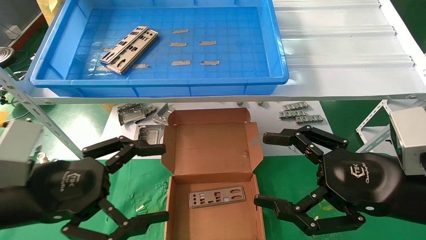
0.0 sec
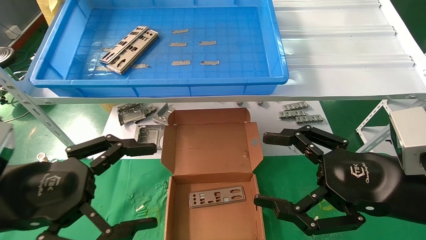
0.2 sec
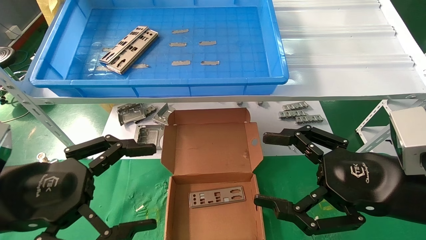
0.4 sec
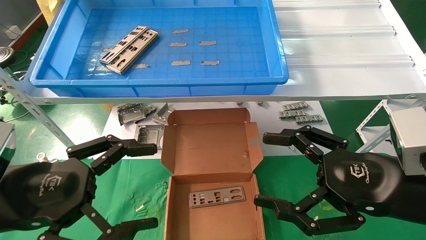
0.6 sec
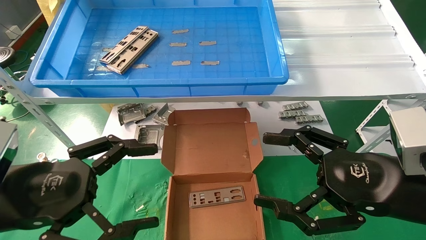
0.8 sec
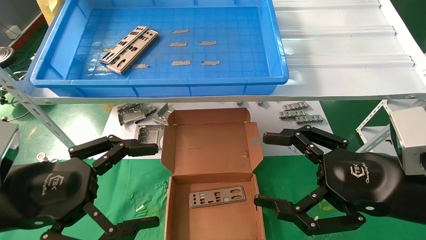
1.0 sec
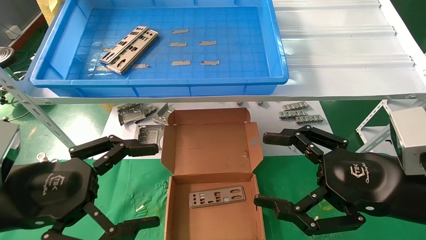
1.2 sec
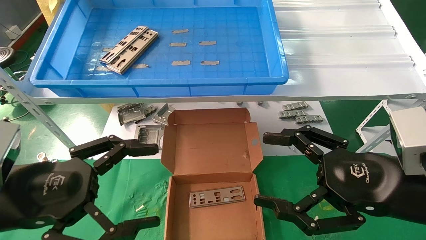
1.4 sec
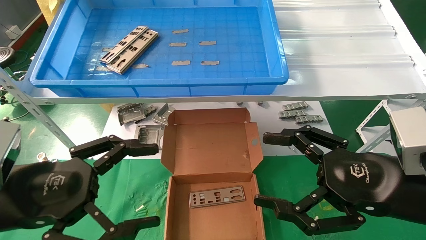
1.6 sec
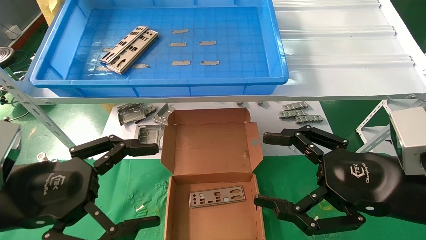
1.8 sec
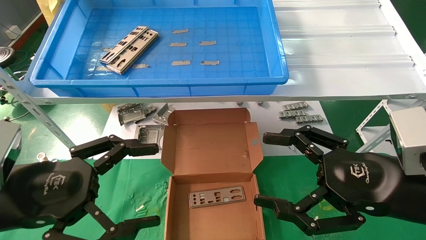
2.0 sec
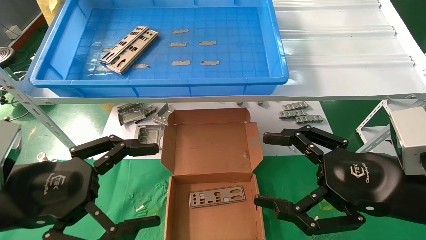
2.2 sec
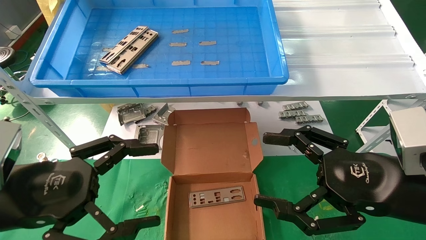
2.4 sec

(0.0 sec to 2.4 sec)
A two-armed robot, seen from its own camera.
Task of the whole recording: pick up the parts on the tray and put them in the cardboard box.
0.0 sec - 1.2 sec: There are only small adjustments of the grippers.
1.2 sec - 2.4 sec: Both grippers stay about where they are.

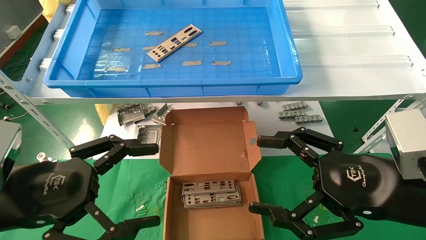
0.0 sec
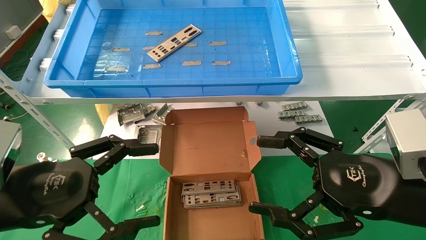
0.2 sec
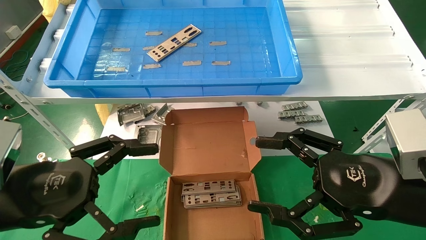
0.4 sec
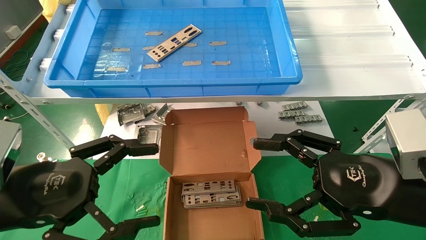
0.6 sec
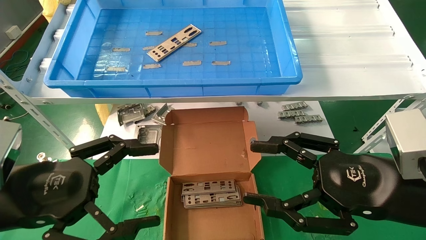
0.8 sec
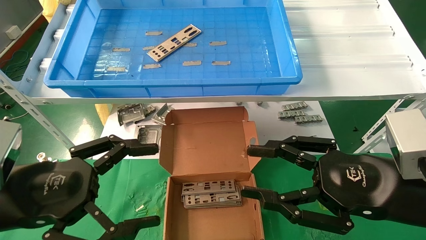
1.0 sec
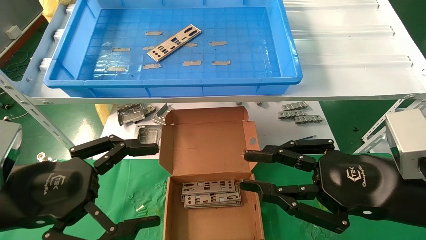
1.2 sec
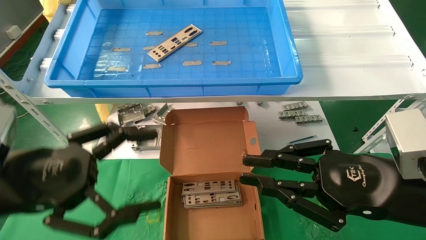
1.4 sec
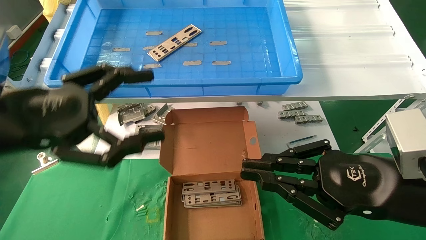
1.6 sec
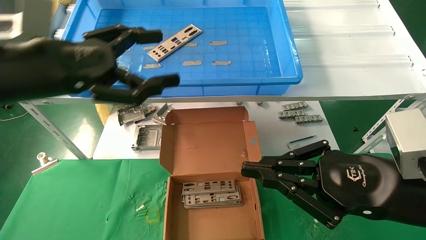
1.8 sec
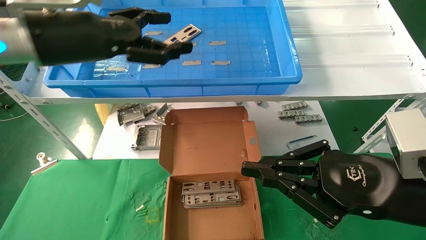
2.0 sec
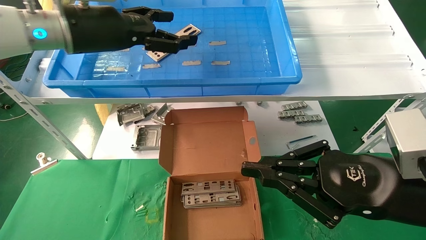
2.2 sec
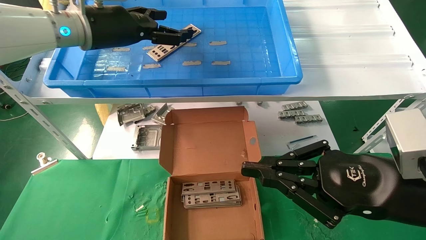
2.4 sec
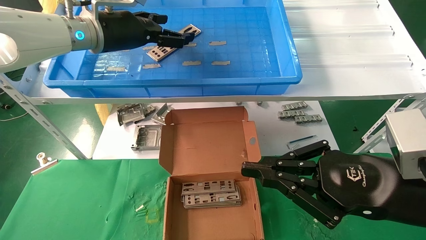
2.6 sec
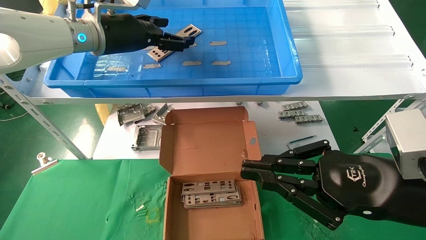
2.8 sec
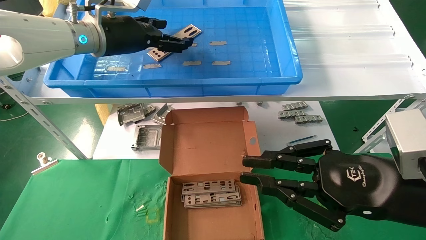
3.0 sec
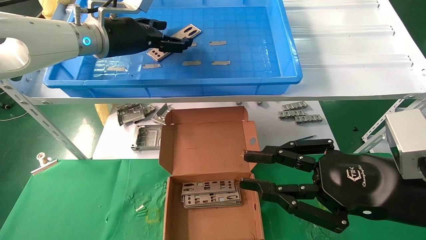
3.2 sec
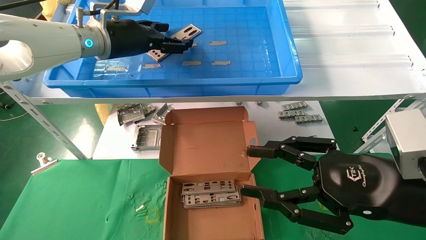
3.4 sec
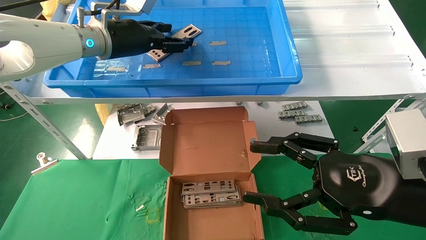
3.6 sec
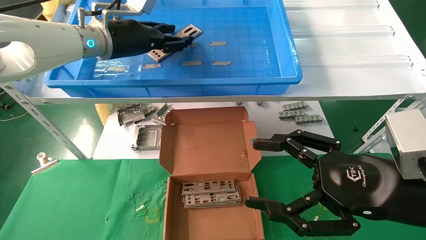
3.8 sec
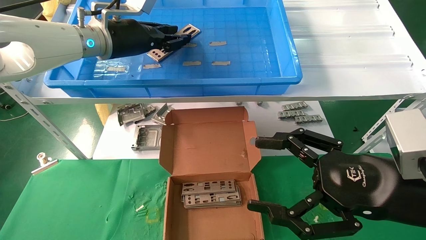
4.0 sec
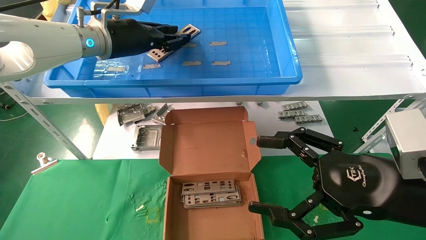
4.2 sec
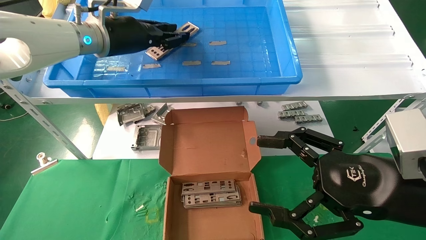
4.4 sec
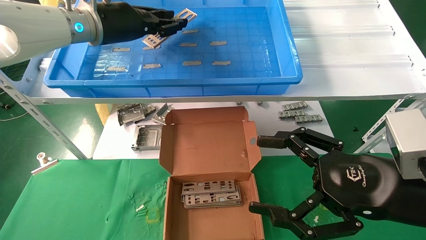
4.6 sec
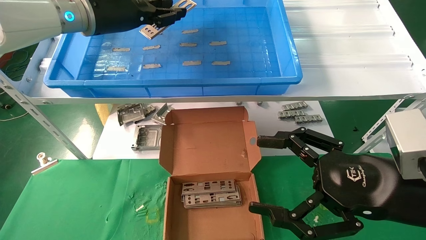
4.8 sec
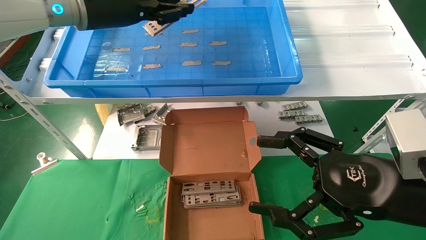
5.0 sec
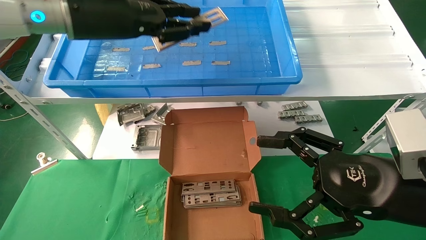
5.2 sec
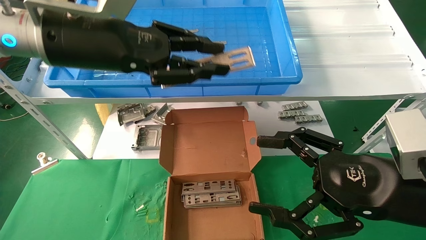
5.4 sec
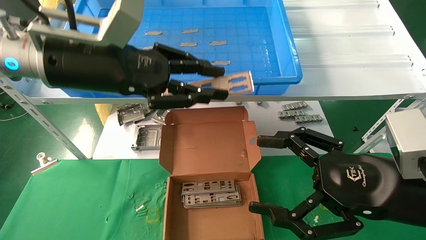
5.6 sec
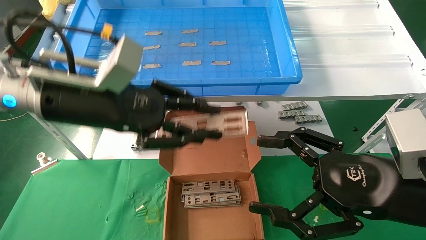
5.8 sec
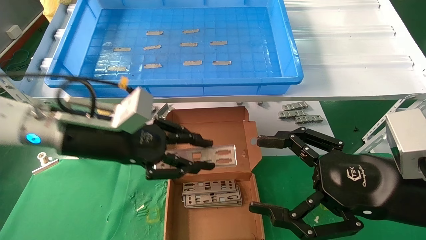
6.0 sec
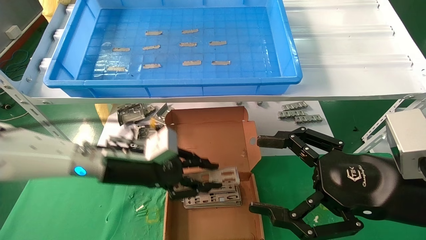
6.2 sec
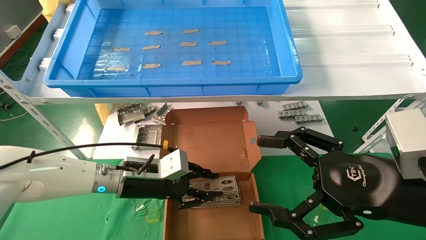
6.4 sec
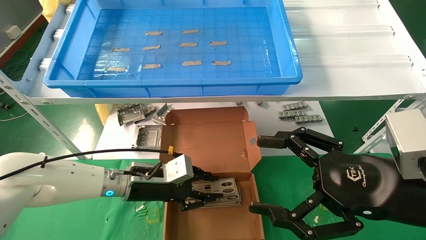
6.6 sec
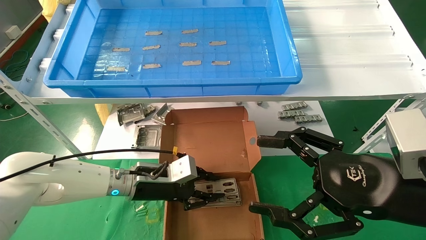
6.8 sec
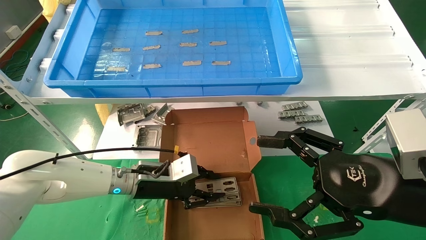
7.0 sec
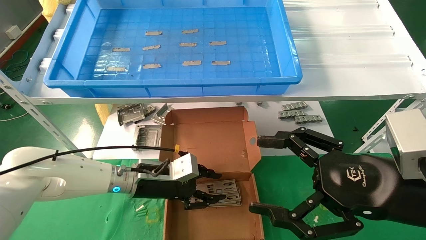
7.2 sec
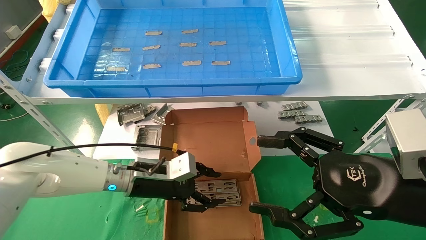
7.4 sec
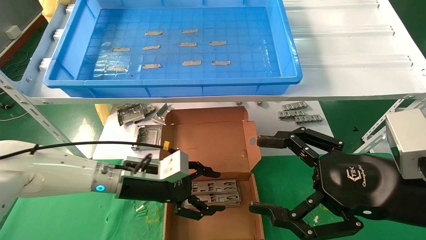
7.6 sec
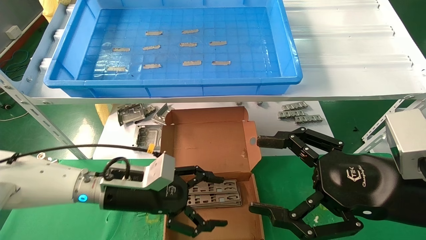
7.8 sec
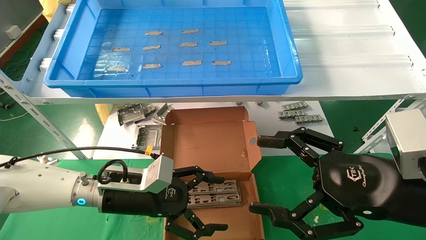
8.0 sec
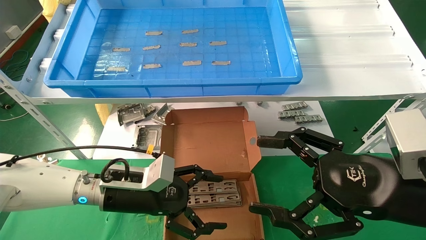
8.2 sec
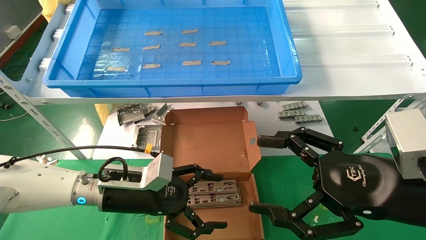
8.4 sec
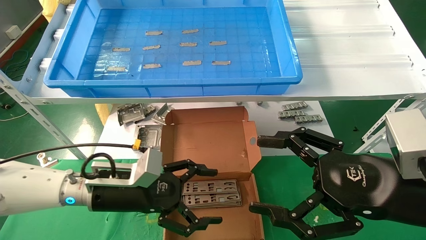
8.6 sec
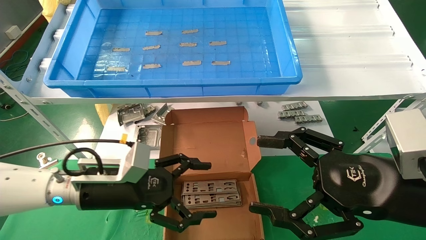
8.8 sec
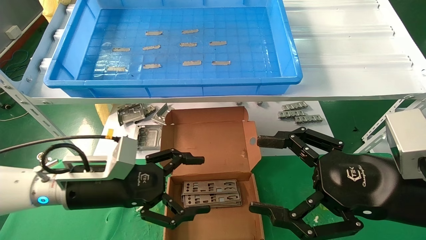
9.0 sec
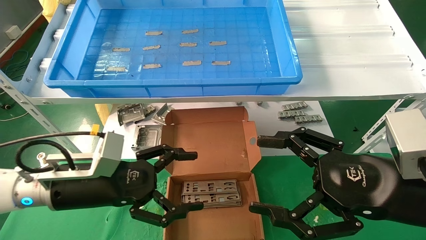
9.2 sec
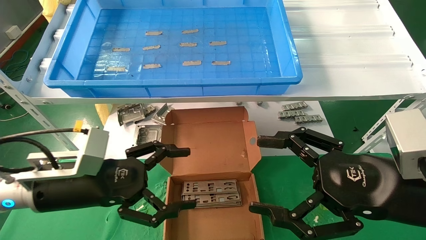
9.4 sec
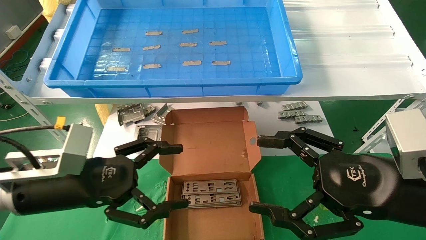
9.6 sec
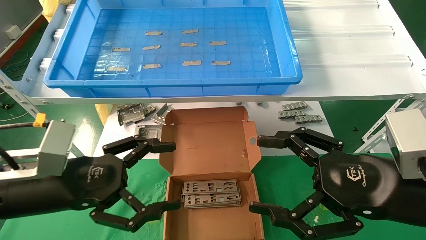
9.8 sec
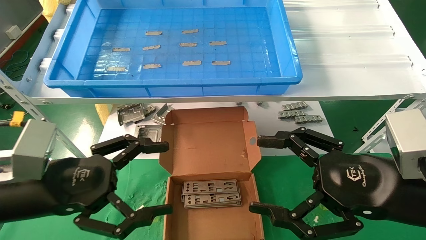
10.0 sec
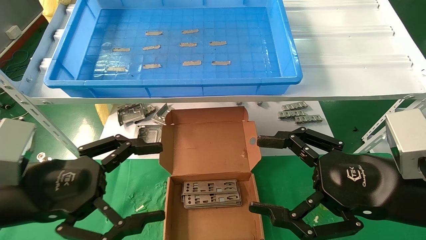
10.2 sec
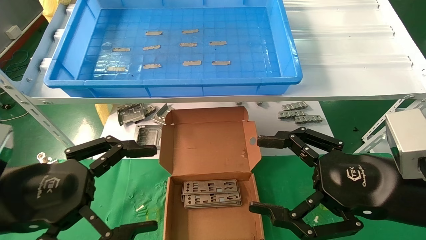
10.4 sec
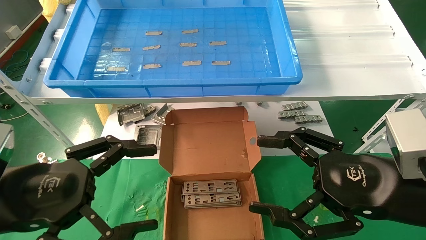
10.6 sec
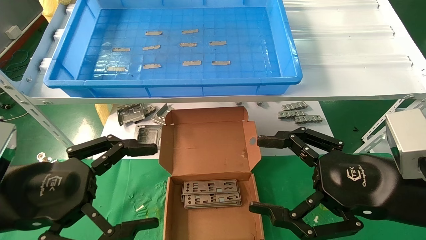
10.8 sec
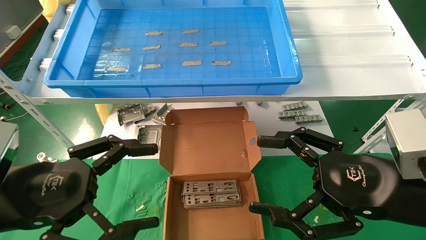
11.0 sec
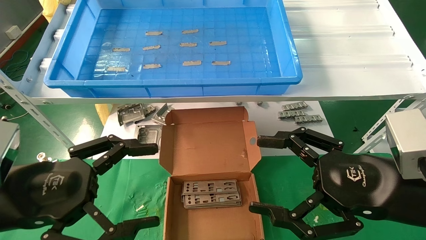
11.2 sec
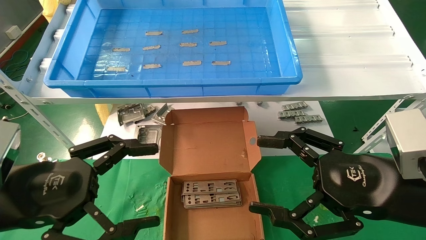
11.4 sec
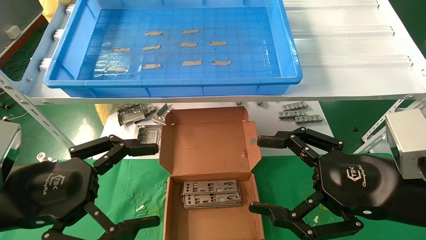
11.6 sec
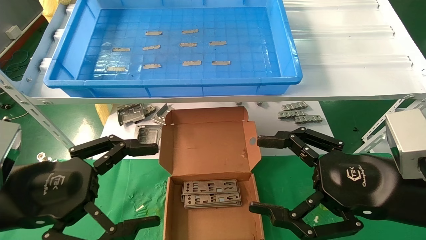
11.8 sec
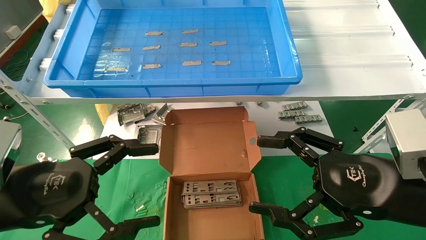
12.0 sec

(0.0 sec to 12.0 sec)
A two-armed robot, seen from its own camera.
Task of the whole recording: pick up the parts on the tray and put them in the cardboard box.
Step, 1.8 sec - 4.2 sec: Pick up the IO bracket from the container box.
Step, 4.4 sec - 7.4 sec: Place the IO bracket into the ingredient slot.
0.0 sec - 1.6 sec: The left gripper travels upward by approximately 10 cm. Meanwhile the right gripper closes its fingers.
1.6 sec - 3.0 sec: The left gripper shifts some 25 cm forward and upward.
3.0 sec - 4.4 sec: The left gripper closes up. Meanwhile the right gripper opens up.
4.4 sec - 6.0 sec: The left gripper travels downward and backward by approximately 20 cm.
6.0 sec - 7.6 sec: The left gripper shifts some 15 cm downward, and opens up.
7.6 sec - 9.0 sec: The left gripper heads backward and to the left, covering about 10 cm, and opens up.
9.0 sec - 10.4 sec: The left gripper is displaced backward, upward and to the left by about 15 cm.
10.4 sec - 12.0 sec: The two grippers keep their place.

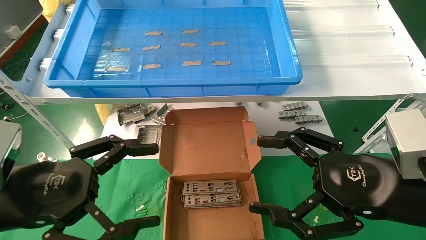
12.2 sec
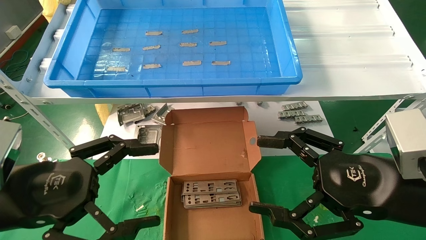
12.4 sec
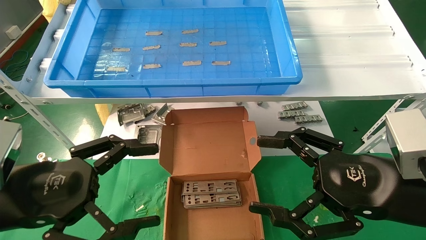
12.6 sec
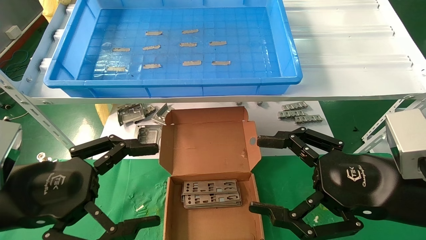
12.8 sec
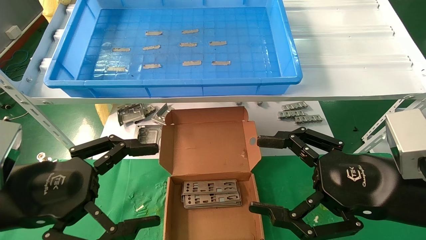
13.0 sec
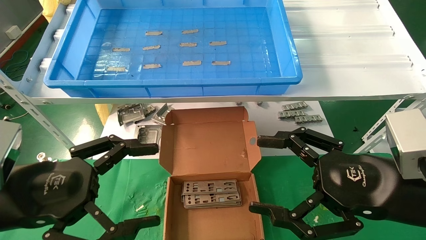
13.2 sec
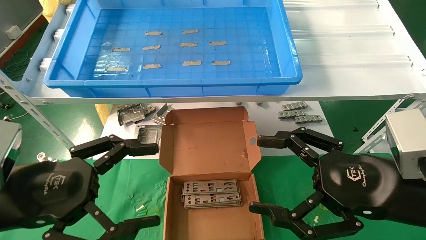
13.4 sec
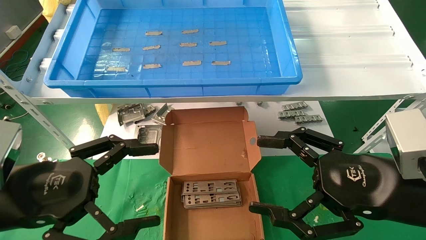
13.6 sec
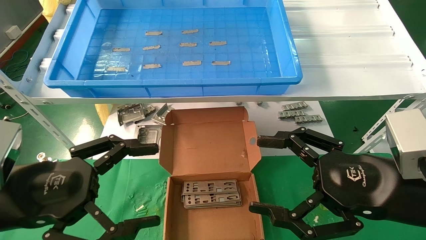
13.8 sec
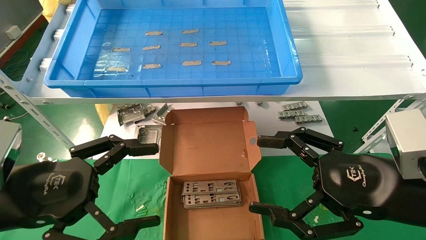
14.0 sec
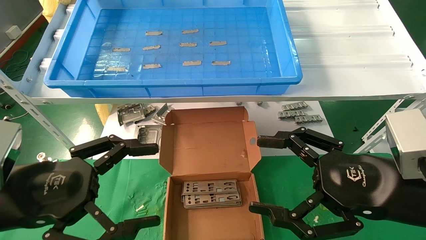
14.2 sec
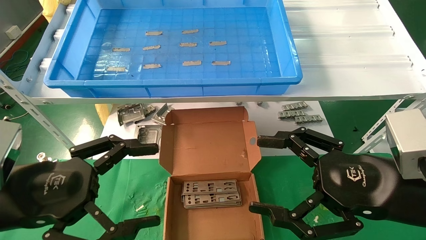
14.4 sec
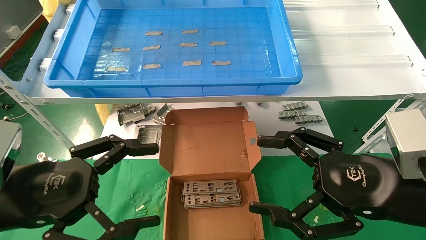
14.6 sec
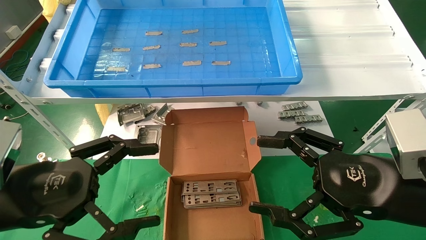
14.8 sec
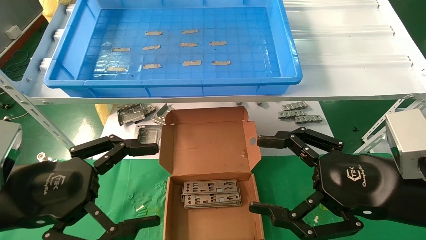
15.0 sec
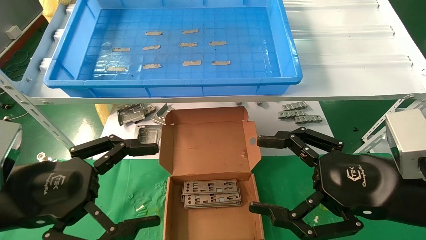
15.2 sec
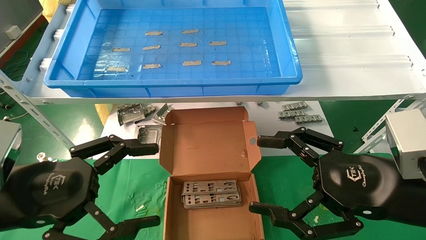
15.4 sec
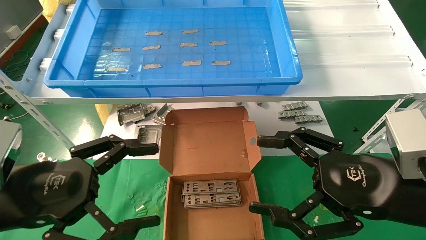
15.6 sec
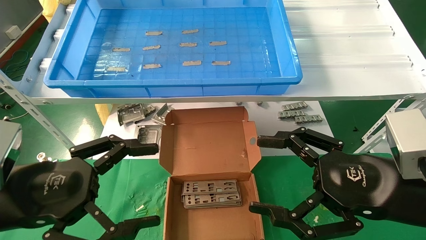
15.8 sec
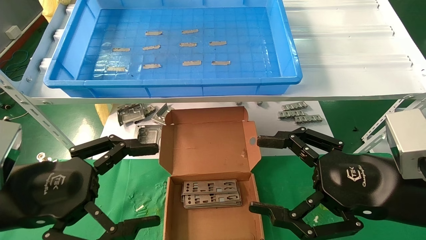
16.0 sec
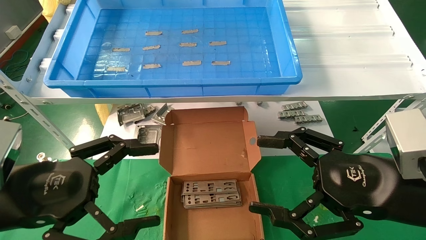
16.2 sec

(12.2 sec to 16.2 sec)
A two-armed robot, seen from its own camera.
Task of the whole recording: pick up the parts on the tray and put them in the cardboard box.
12.2 sec - 16.2 sec: Both grippers stay about where they are.
